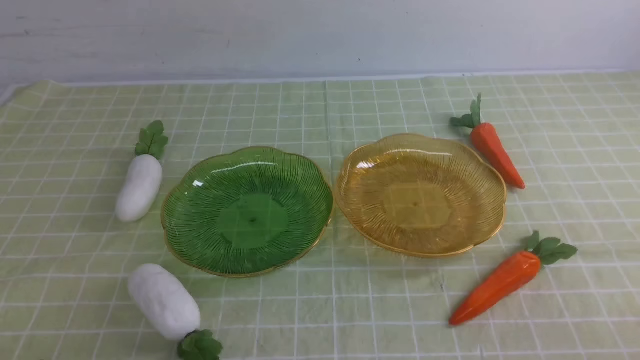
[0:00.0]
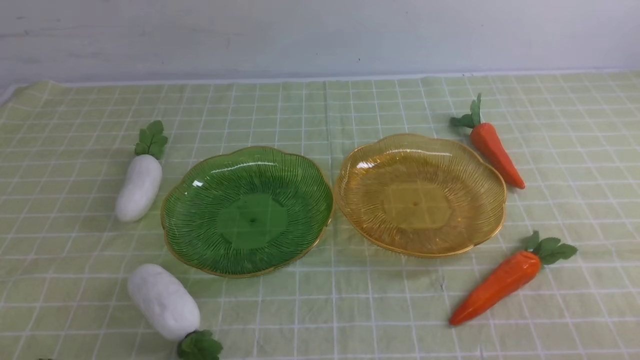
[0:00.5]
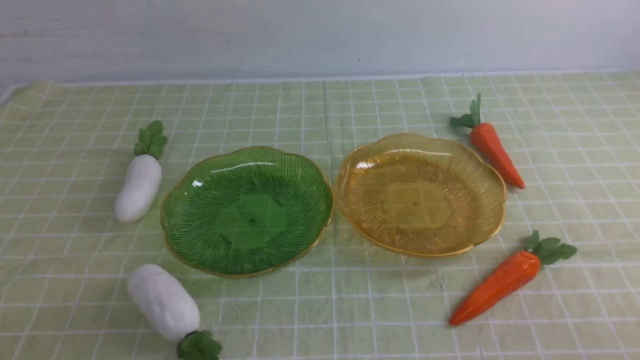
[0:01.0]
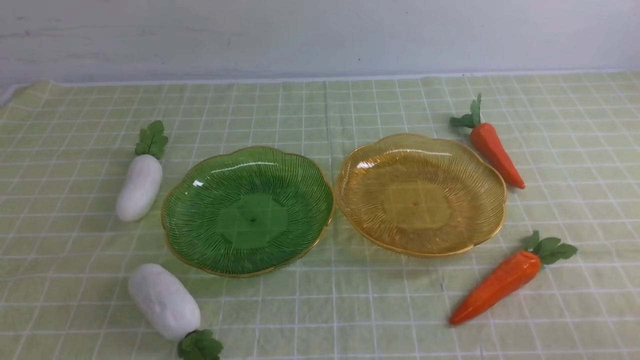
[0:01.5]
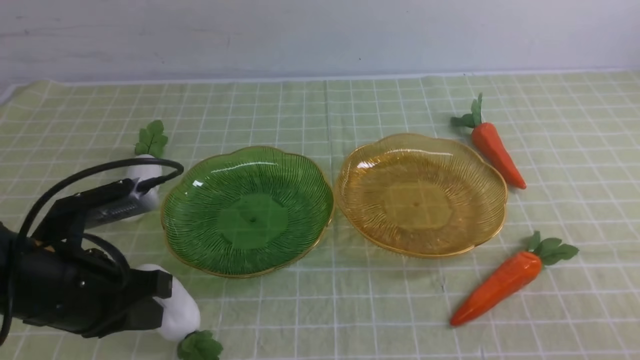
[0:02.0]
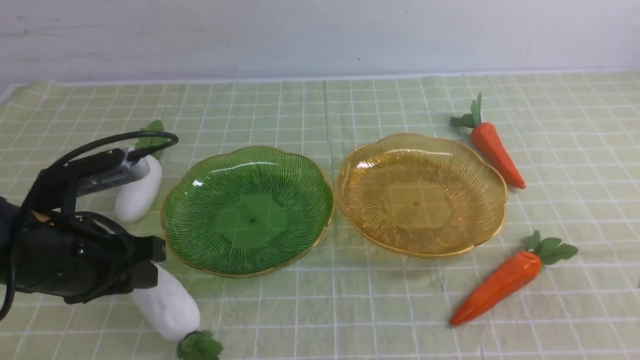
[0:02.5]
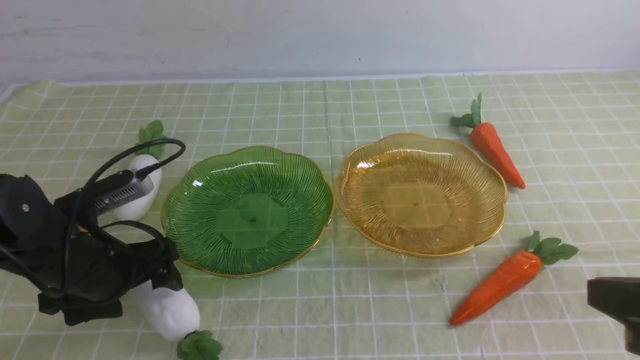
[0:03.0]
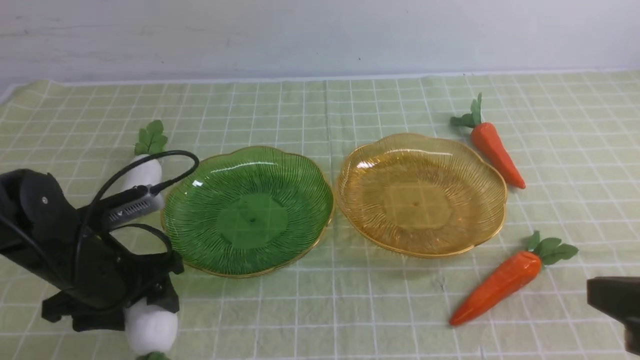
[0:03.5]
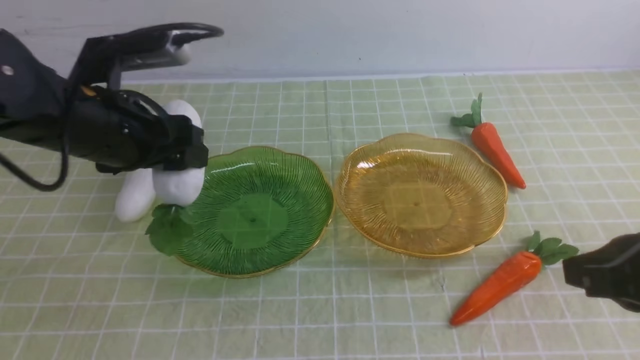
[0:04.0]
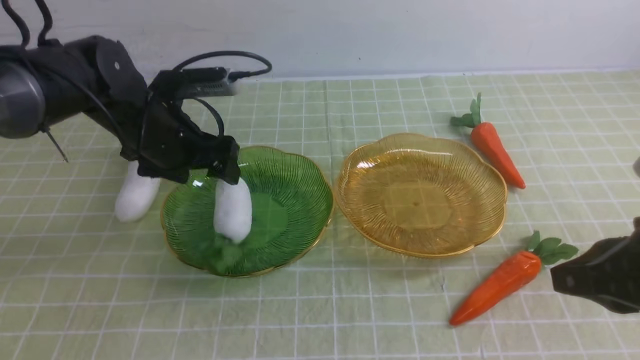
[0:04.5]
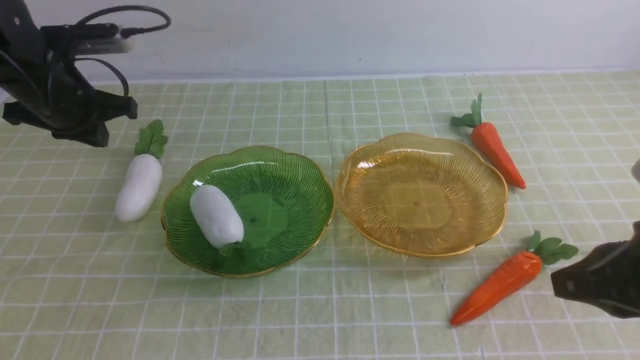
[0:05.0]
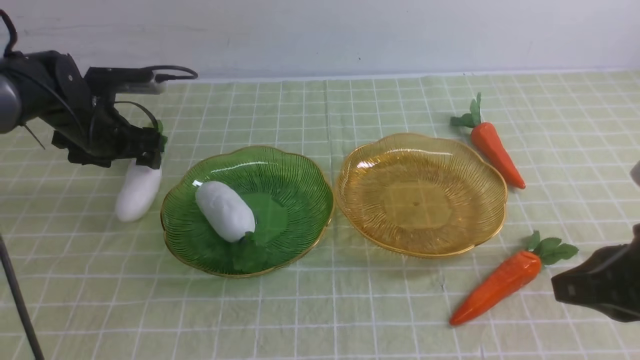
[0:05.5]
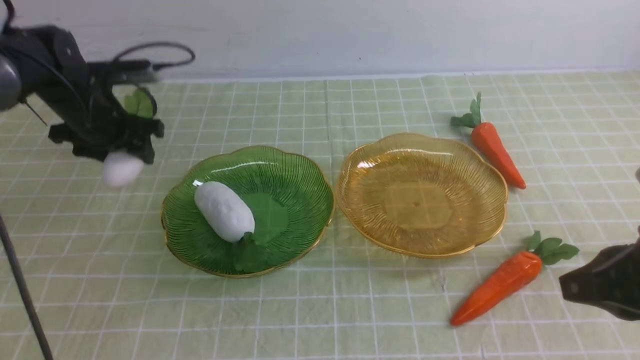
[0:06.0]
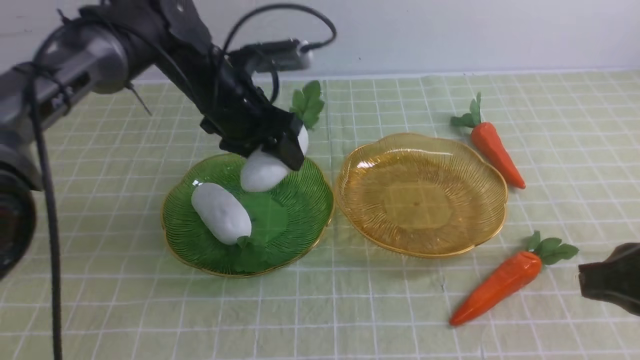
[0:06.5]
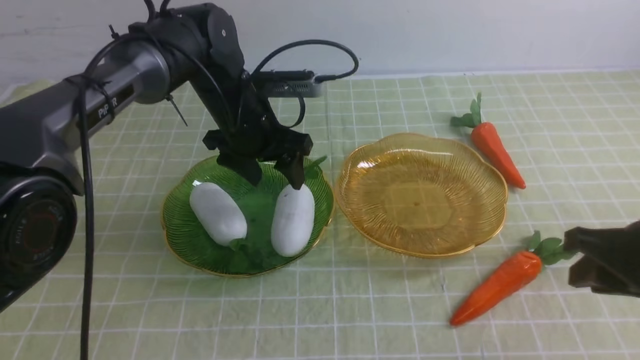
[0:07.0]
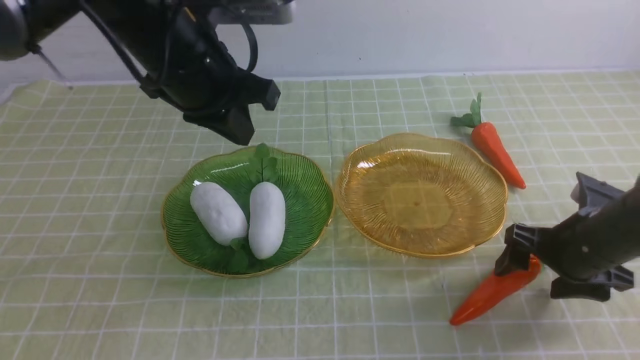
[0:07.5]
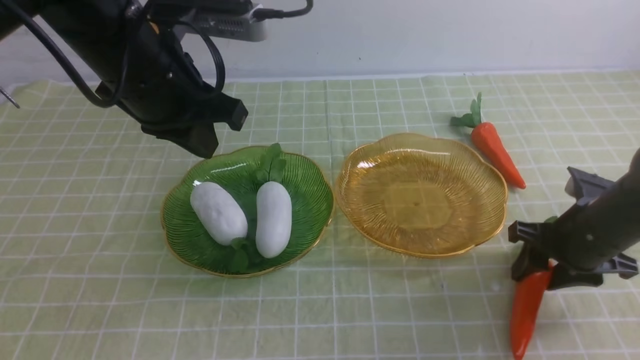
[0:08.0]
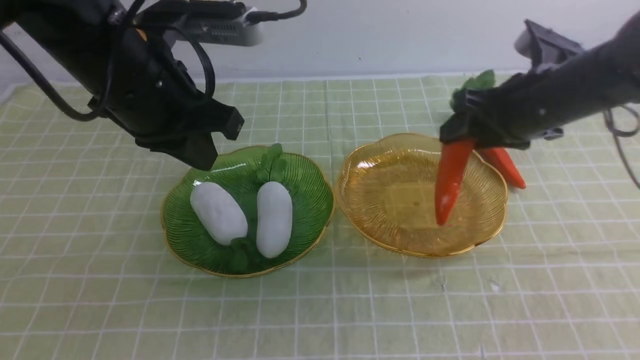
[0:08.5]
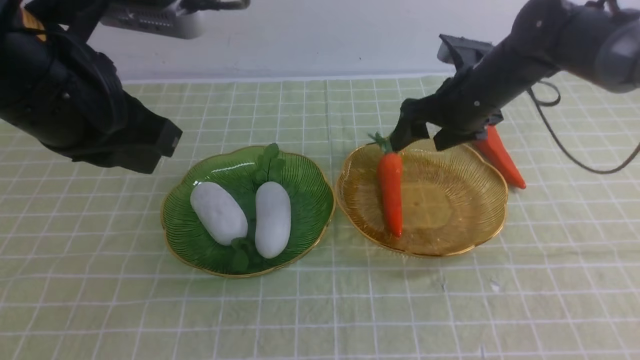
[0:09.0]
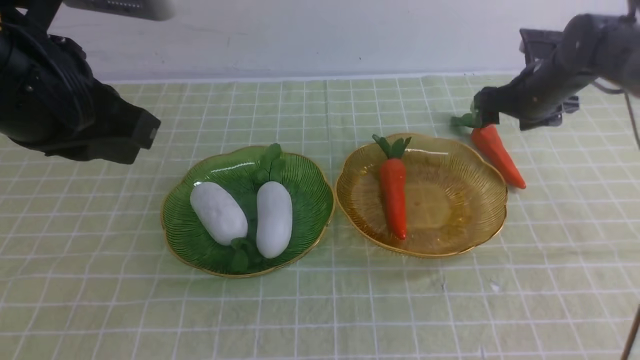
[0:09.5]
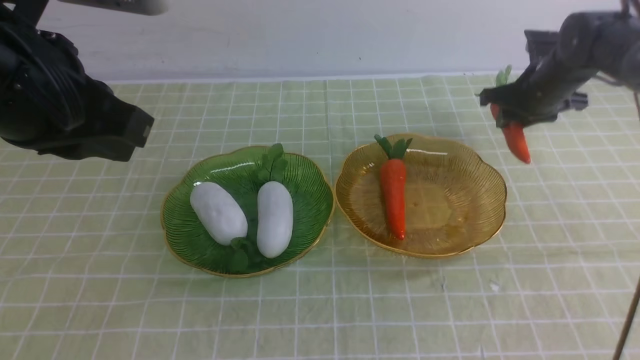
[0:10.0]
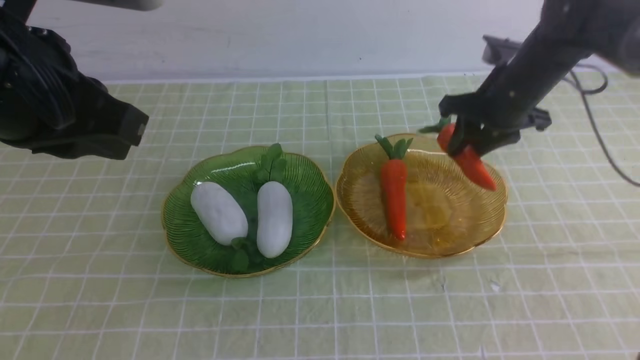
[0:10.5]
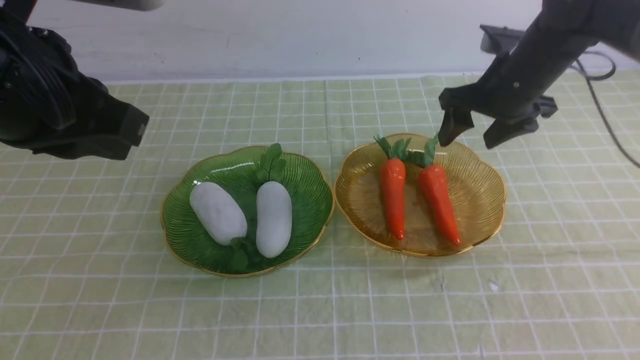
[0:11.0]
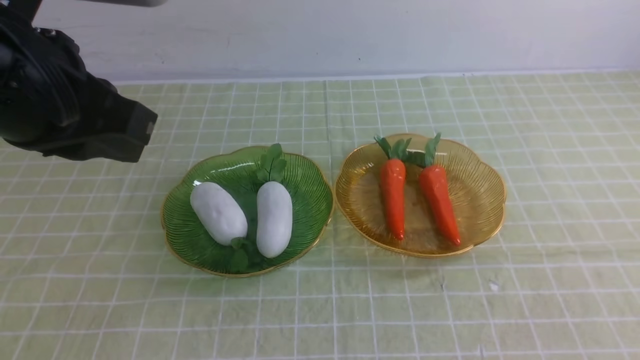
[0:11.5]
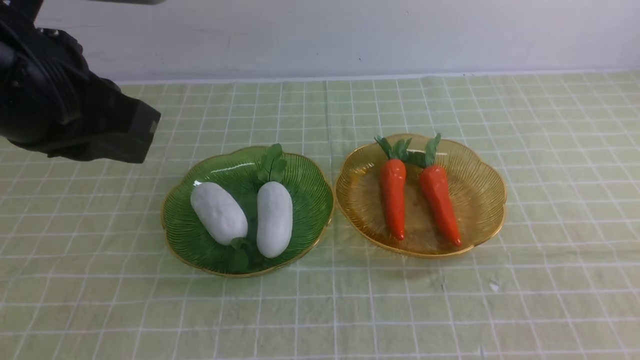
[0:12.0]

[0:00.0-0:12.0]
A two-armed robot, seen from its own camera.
Step, 0:00.0 to 0:04.0: use the left arm to grab a radish and put it into the left plate.
Step, 0:04.5 to 0:06.5: use the left arm to grab a radish and put it into the left plate.
Step, 0:07.0 to 0:08.5: use the right arm to grab a carrot and put it into the right plate.
Step, 0:09.5 to 0:10.5: use the right arm to grab a carrot and put it into the right plate.
0:00.0 to 0:02.0: The left gripper travels forward and upward by about 15 cm.
0:02.0 to 0:04.0: The left gripper goes approximately 15 cm forward, and opens its fingers. The right gripper heads forward, upward and to the left, covering roughly 15 cm.
0:04.0 to 0:06.0: The left gripper goes roughly 15 cm forward and to the left, and closes and opens again.
0:06.0 to 0:08.0: The left gripper is displaced backward, upward and to the right by approximately 20 cm, and closes; the right gripper shifts approximately 20 cm forward and downward, and opens.
0:08.0 to 0:10.0: The right gripper moves forward, about 20 cm, and opens and closes again, while the left gripper heads backward and upward, covering some 10 cm.
0:10.0 to 0:12.0: The right gripper is displaced backward by some 50 cm, and closes its fingers.

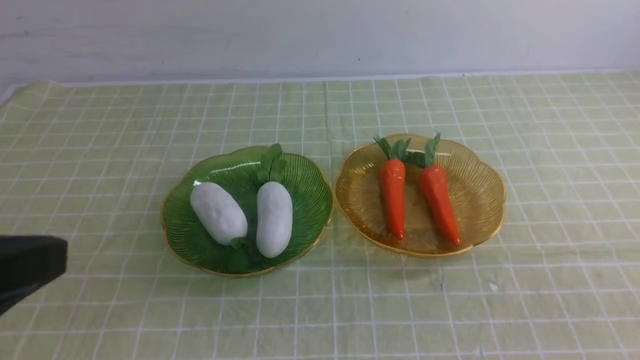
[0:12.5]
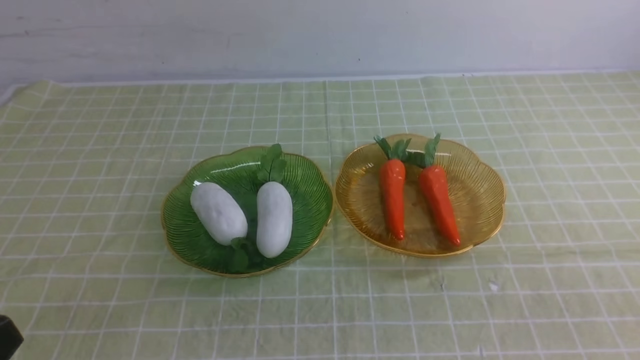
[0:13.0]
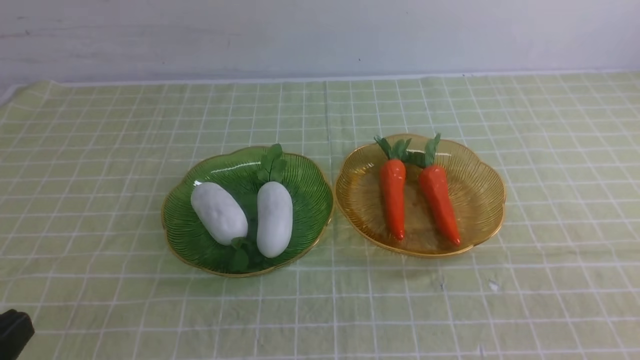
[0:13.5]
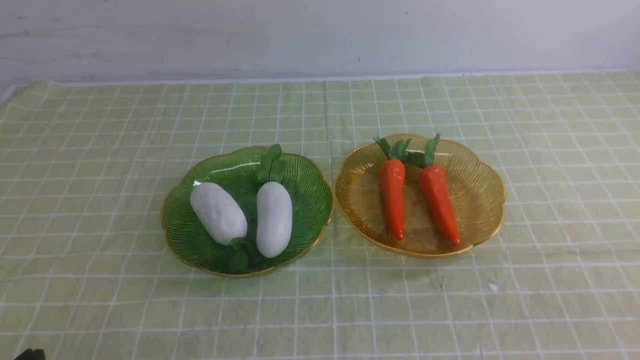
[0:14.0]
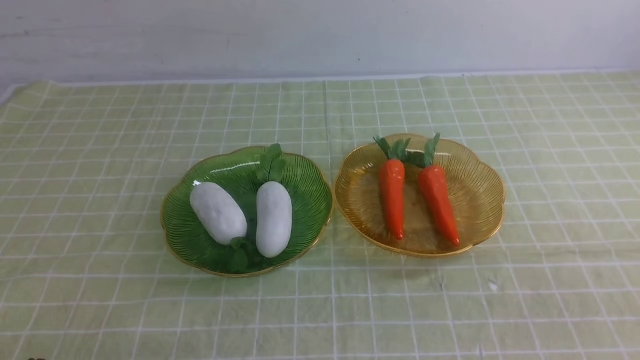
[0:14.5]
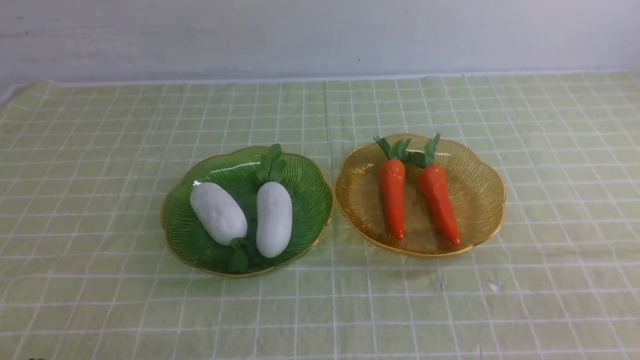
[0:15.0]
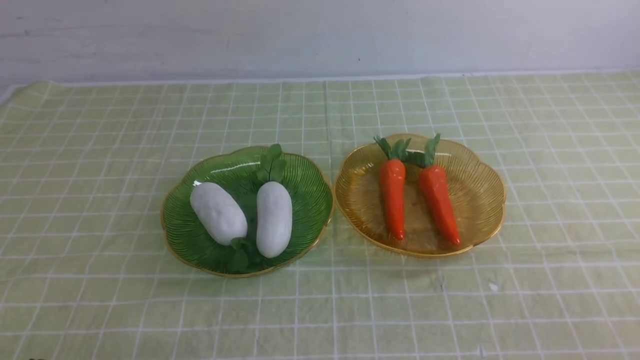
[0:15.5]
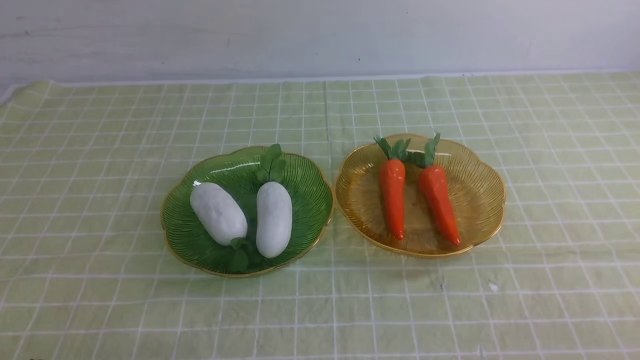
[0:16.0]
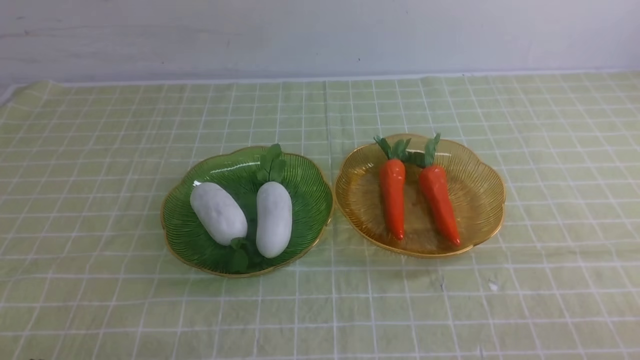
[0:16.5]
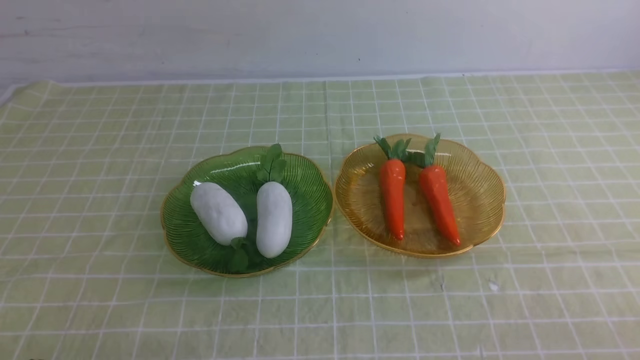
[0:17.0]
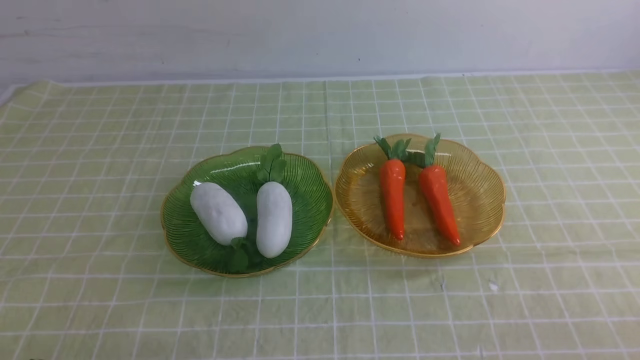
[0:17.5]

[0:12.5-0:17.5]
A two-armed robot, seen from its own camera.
0:12.5 to 0:15.0: The left gripper goes some 20 cm downward.
